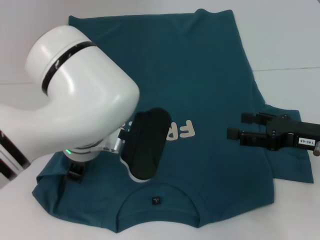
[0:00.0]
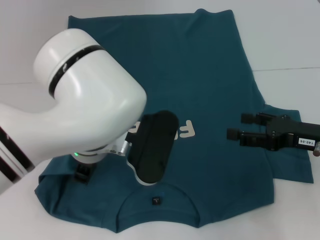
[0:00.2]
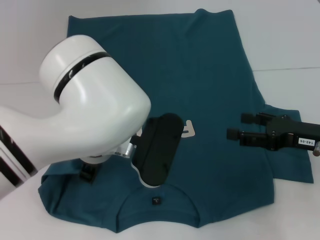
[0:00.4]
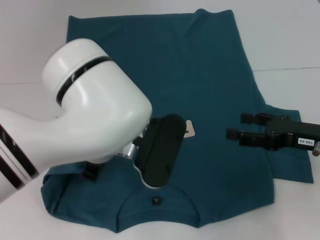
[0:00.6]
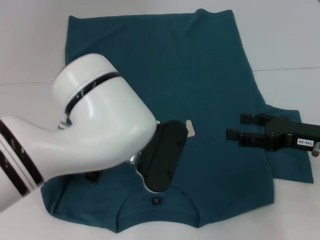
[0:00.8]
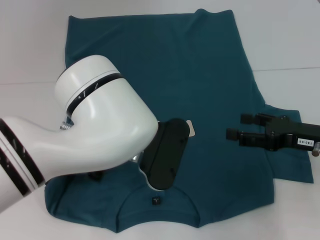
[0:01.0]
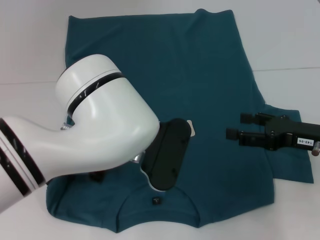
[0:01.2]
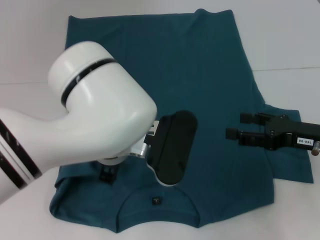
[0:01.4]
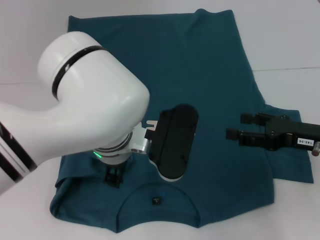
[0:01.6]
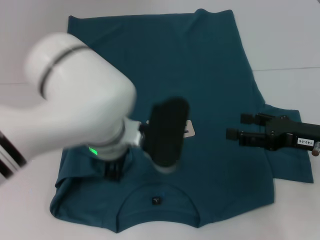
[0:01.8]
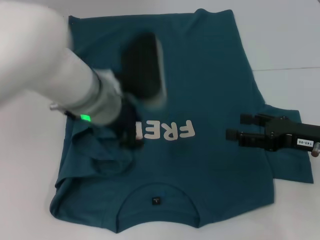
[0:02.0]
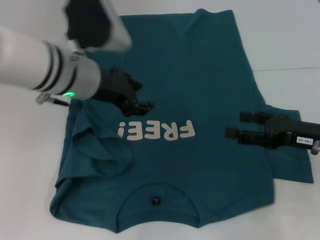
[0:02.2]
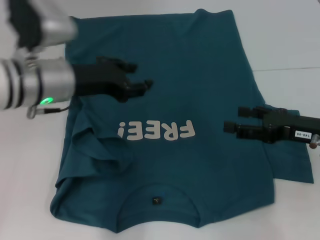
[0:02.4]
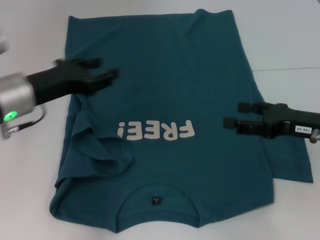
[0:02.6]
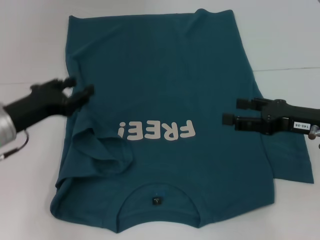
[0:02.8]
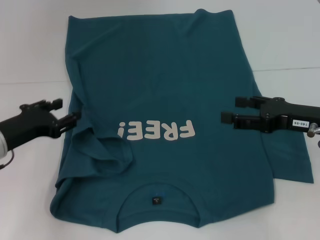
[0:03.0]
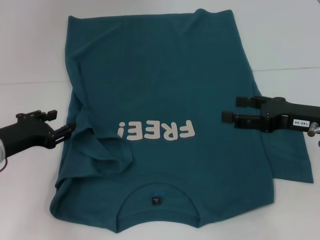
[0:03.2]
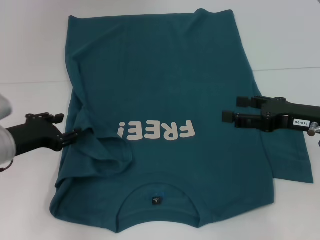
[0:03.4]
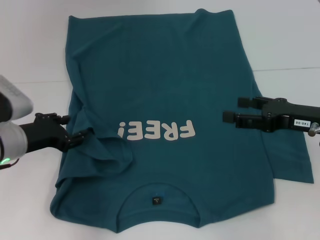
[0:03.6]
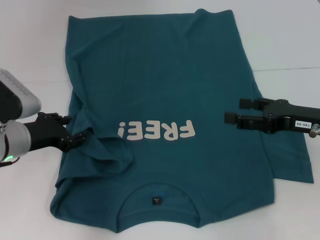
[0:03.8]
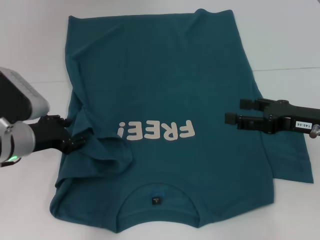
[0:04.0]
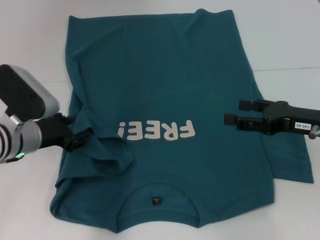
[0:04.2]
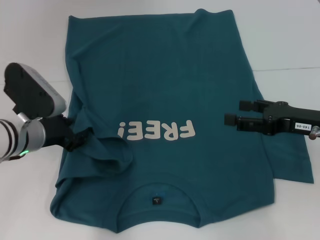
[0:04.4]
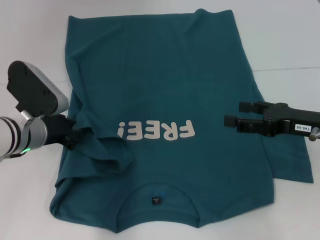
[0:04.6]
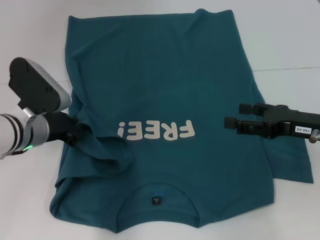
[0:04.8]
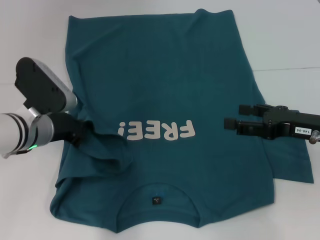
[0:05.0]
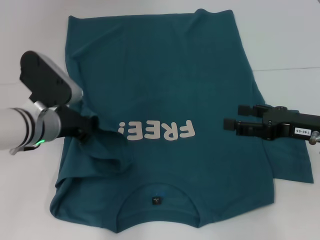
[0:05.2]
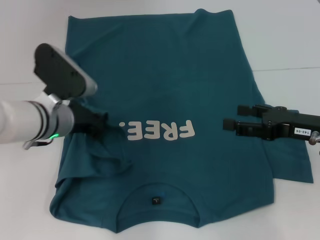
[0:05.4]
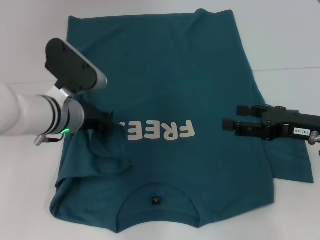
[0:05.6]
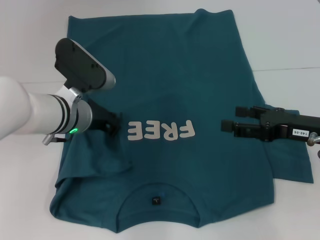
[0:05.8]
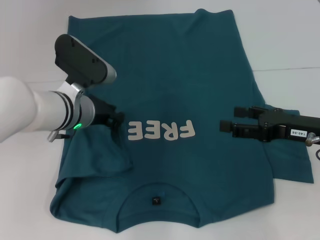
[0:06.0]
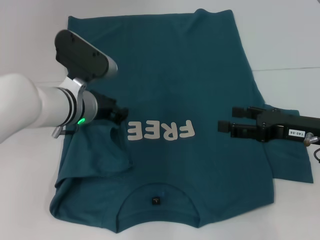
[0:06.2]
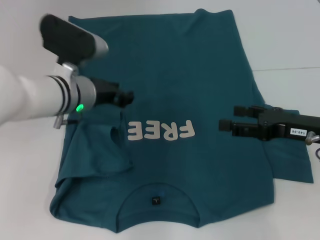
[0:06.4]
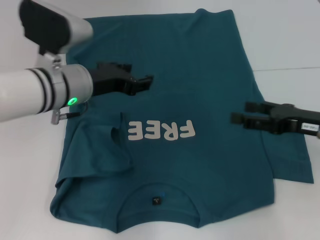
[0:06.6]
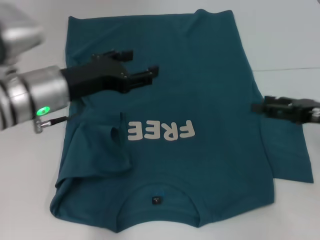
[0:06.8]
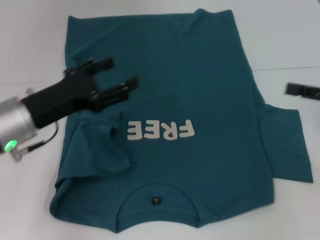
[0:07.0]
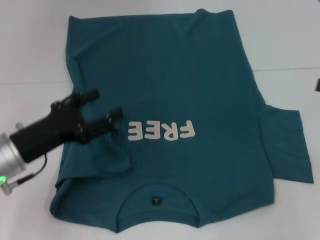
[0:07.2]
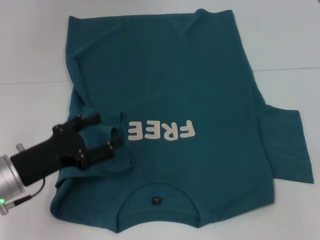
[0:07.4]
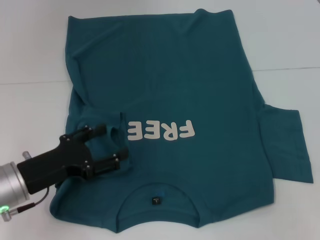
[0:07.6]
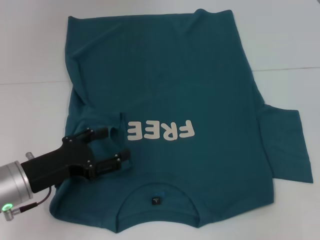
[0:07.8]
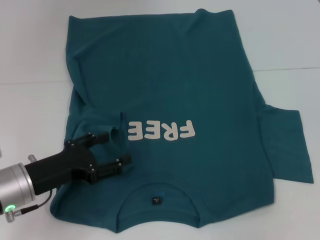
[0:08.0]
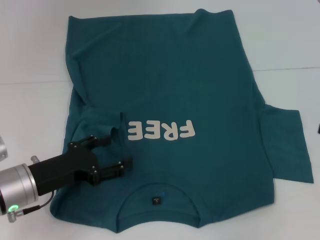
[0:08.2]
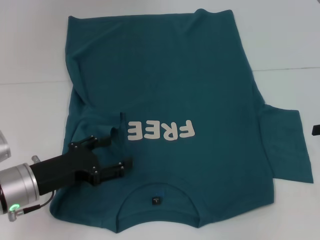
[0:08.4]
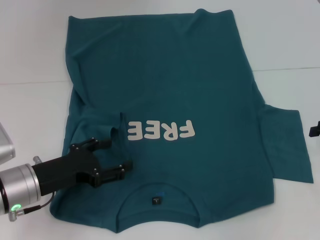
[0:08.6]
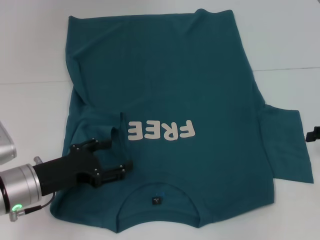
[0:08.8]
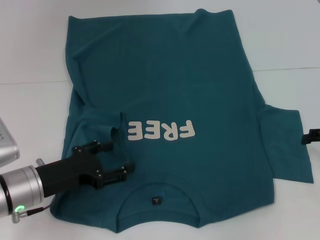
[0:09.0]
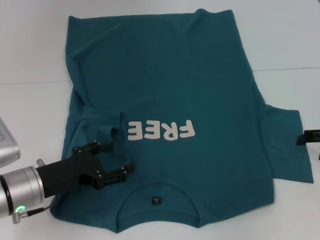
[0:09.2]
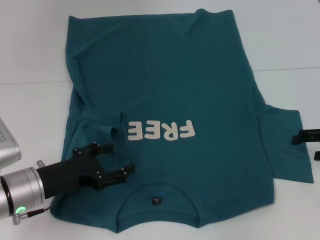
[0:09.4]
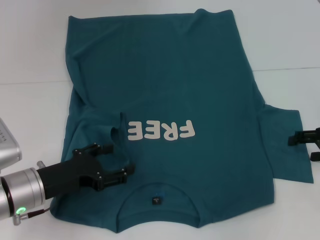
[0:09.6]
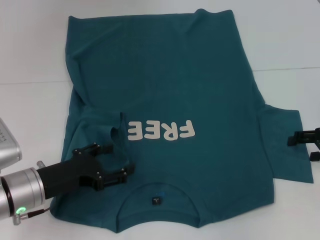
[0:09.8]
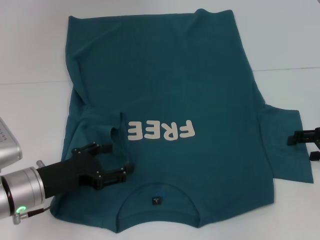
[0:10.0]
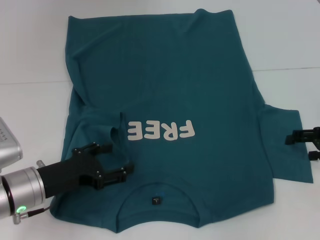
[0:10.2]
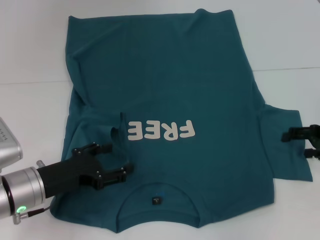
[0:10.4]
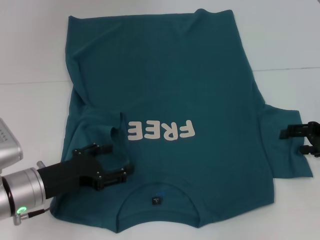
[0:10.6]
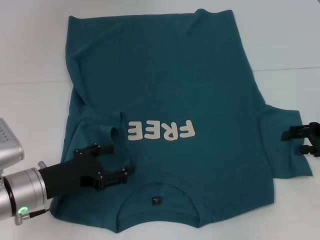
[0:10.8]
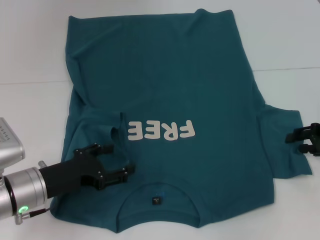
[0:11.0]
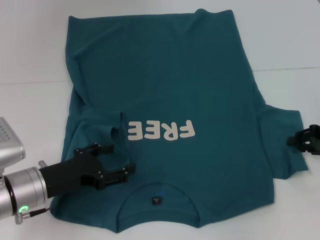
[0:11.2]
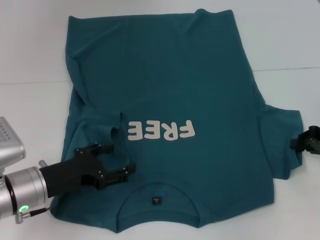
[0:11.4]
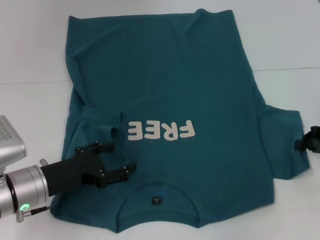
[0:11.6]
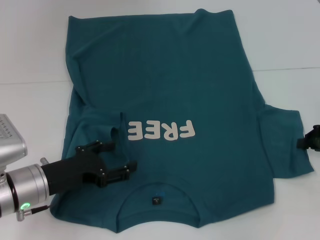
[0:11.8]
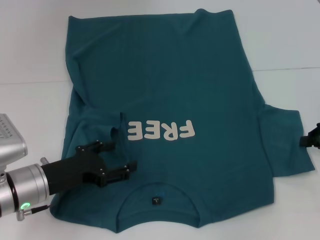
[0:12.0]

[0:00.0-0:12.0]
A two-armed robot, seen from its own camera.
Step, 0:00.0 to 0:07.0: Fold the bottom left sleeve with your left hand.
0:00.0 to 0:01.6: The left gripper opens.
0:01.6 to 0:03.0: The left gripper goes about 20 cm to the left.
0:03.0 to 0:04.4: The left gripper shifts approximately 5 cm to the right.
0:04.4 to 0:06.0: The left gripper goes roughly 10 cm to the right, and closes its fingers.
0:06.0 to 0:07.6: The right gripper moves to the right, roughly 15 cm. Meanwhile the left gripper heads backward and to the left, covering some 15 cm, and opens up.
0:09.0 to 0:10.4: There are only small adjustments of the grippers.
0:10.4 to 0:12.0: The right gripper closes.

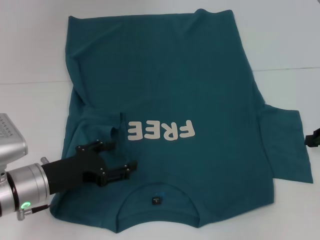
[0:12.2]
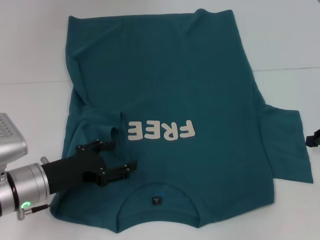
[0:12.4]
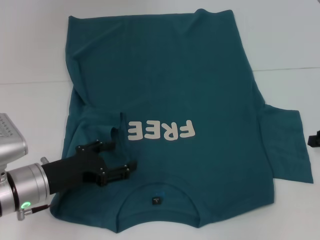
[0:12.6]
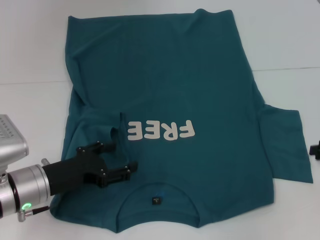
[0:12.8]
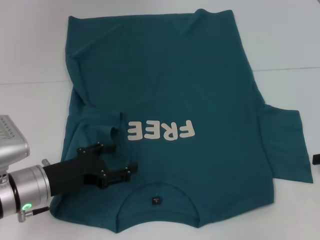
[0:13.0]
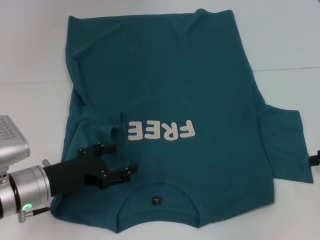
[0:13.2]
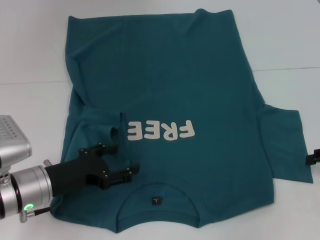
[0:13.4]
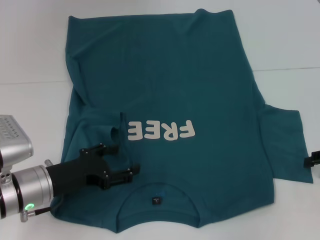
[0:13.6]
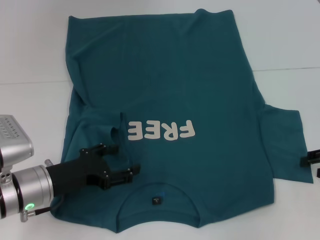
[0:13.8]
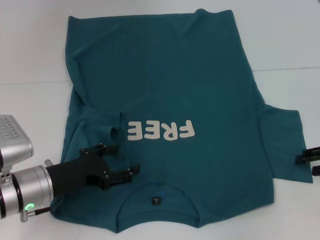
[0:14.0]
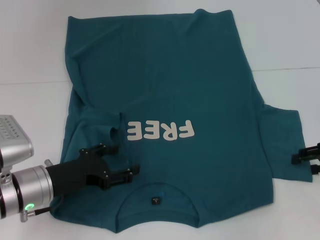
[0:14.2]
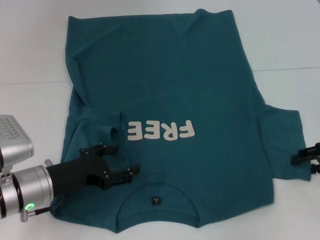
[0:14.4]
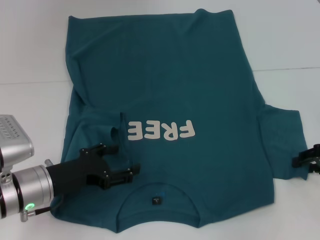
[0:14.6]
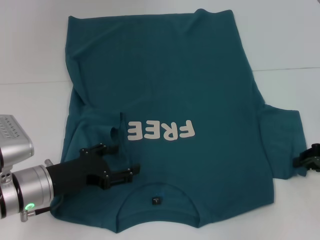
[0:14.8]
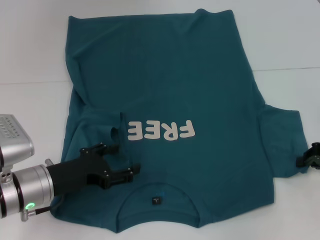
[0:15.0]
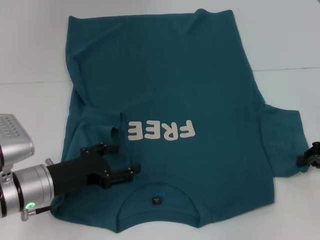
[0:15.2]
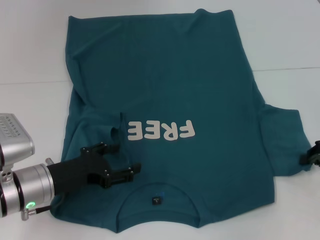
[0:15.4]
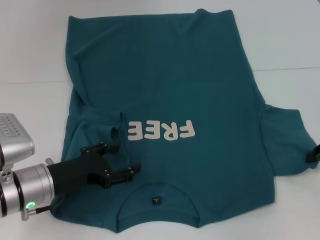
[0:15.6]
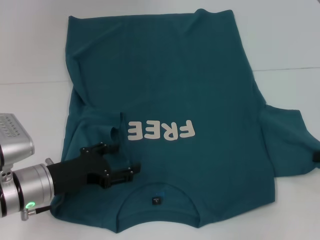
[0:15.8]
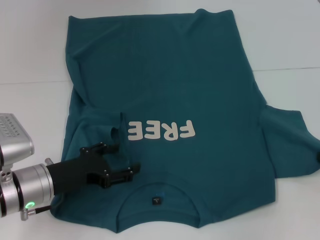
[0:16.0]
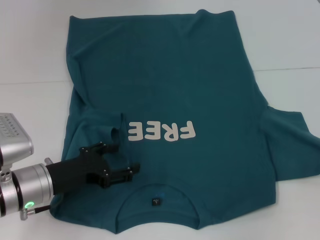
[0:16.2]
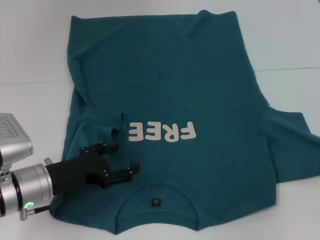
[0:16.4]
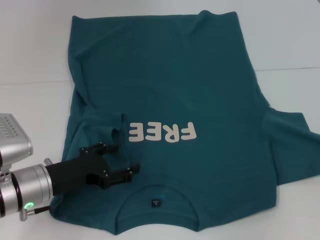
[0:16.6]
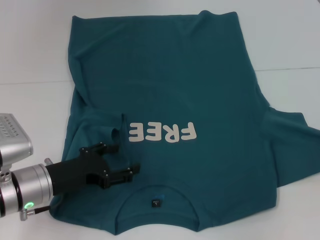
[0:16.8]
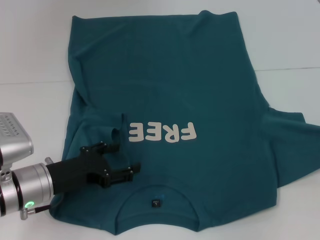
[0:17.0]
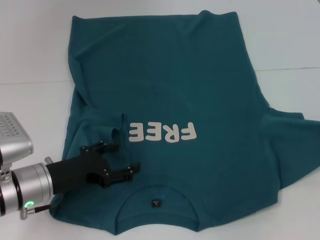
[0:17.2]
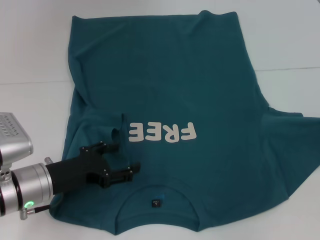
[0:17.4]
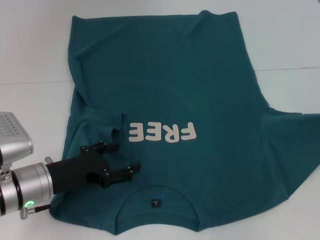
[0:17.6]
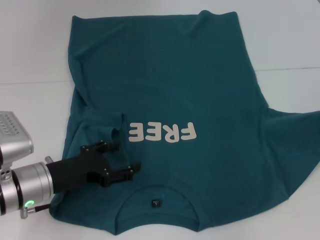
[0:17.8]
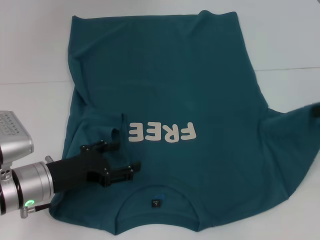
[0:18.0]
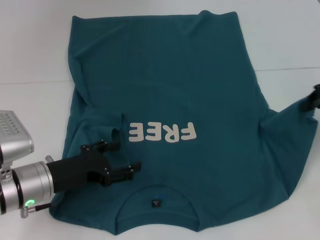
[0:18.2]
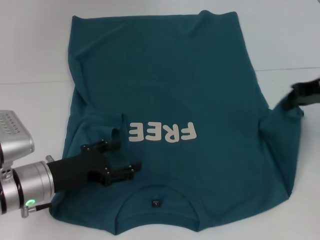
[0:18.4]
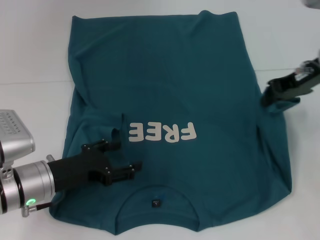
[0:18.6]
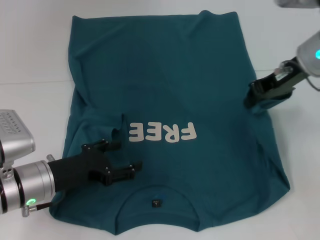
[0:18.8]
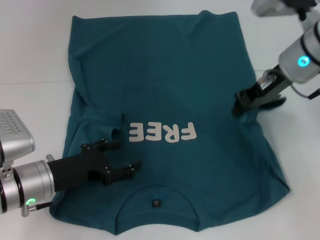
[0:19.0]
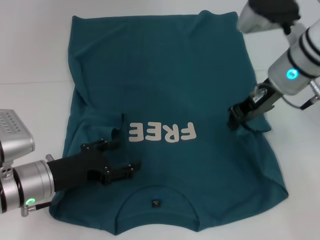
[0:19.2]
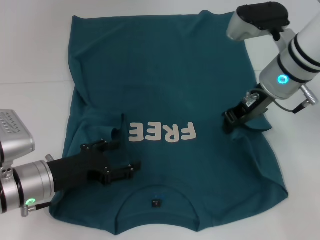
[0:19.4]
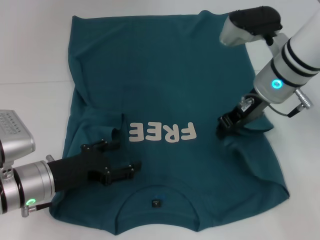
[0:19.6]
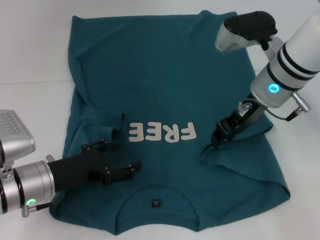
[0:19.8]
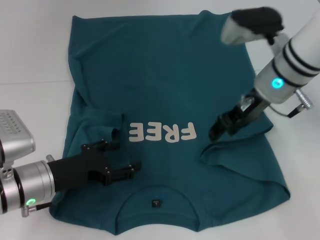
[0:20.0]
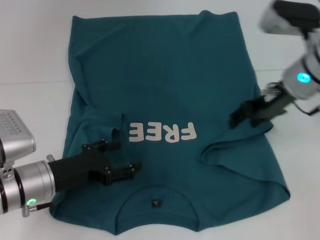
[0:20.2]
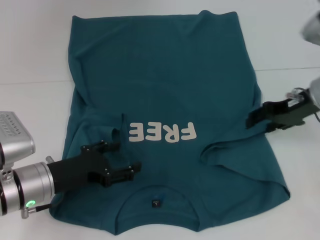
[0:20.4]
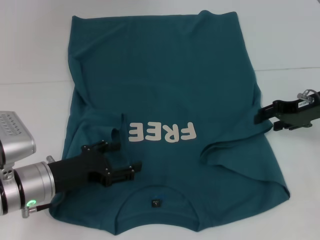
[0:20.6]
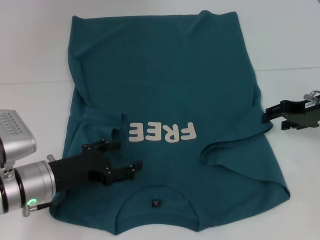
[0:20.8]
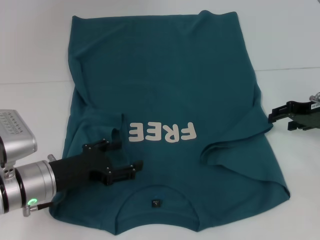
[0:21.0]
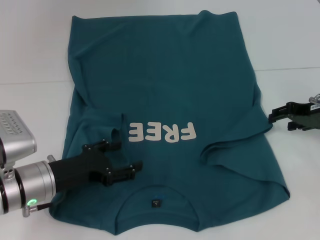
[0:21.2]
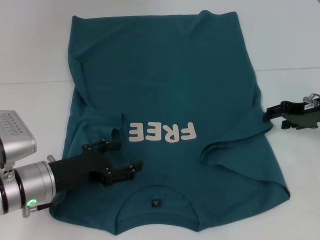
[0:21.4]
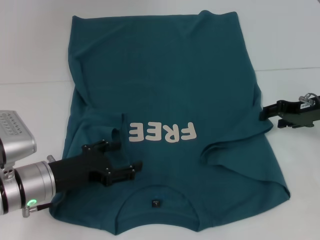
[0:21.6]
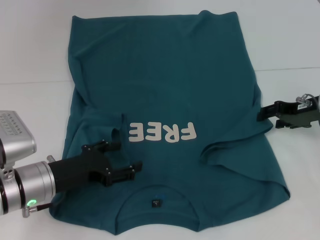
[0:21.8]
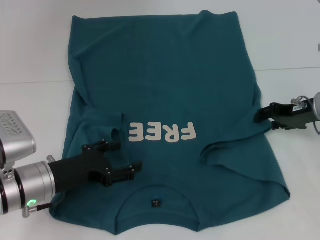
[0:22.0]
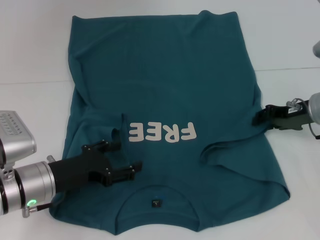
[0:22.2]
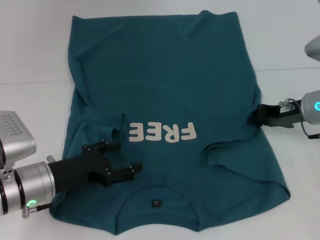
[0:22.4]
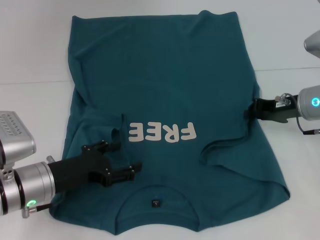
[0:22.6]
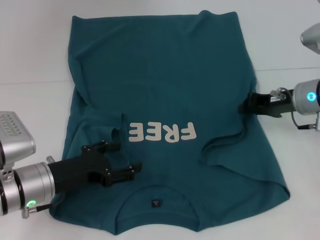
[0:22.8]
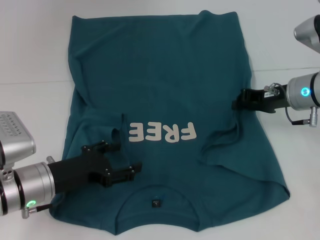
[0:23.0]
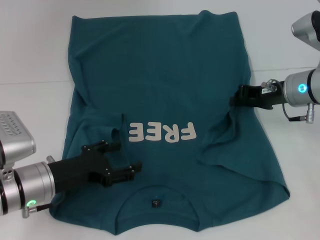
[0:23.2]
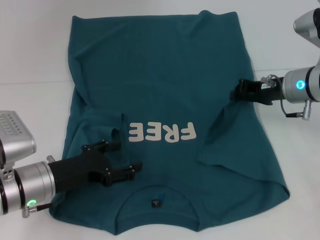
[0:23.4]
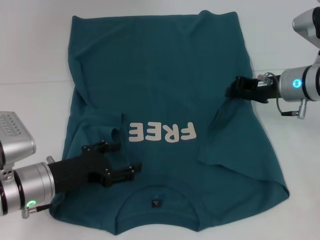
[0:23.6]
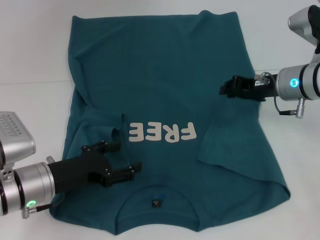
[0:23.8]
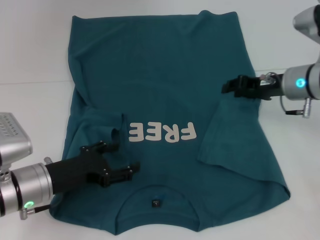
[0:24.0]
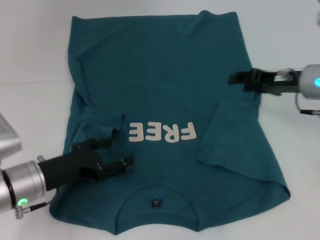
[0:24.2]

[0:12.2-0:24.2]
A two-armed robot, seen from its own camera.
Step, 0:12.2 to 0:24.0: Fold the bottom right sleeve to the right.
0:12.2 to 0:13.8: The right gripper opens its fingers.
0:13.8 to 0:15.2: The right gripper closes its fingers.
0:15.2 to 0:16.6: The right gripper changes place by approximately 5 cm.
0:16.6 to 0:18.2: The right gripper heads upward, forward and to the left, covering roughly 10 cm.
0:18.2 to 0:19.8: The right gripper travels to the left by roughly 20 cm.
0:19.8 to 0:21.2: The right gripper goes approximately 15 cm to the right, and opens its fingers.
0:21.2 to 0:22.6: The right gripper closes.
0:22.6 to 0:24.2: The grippers stay close to where they were, moving slightly.
